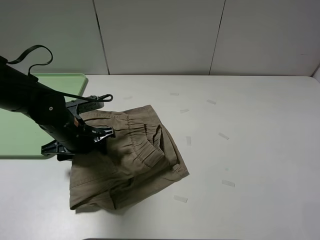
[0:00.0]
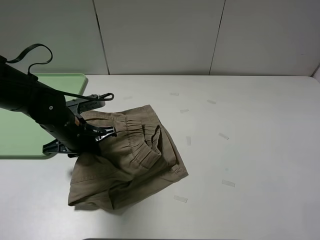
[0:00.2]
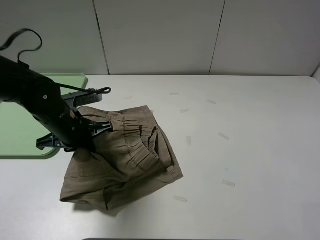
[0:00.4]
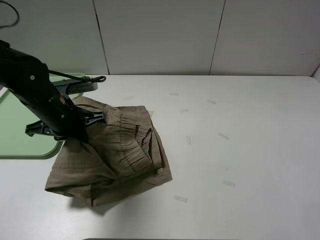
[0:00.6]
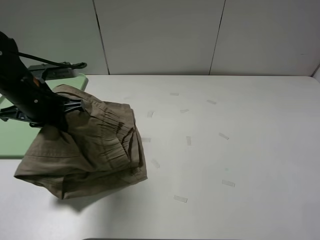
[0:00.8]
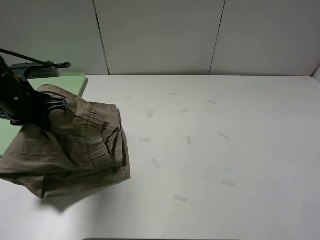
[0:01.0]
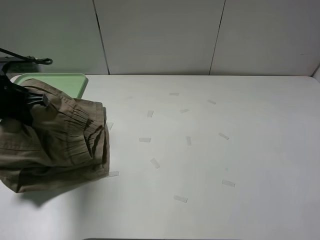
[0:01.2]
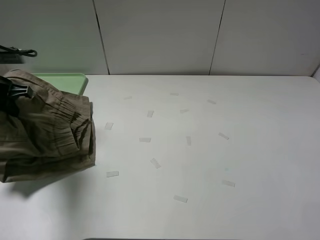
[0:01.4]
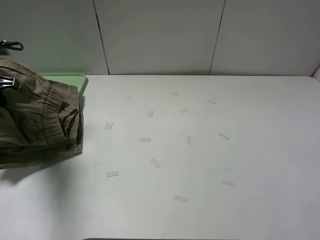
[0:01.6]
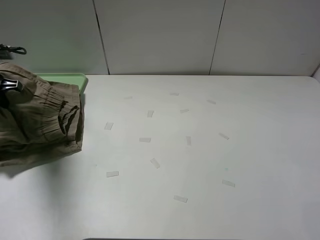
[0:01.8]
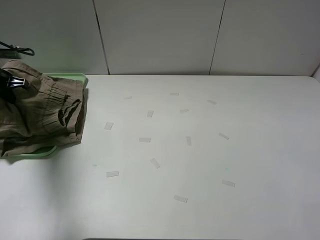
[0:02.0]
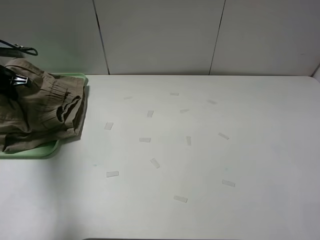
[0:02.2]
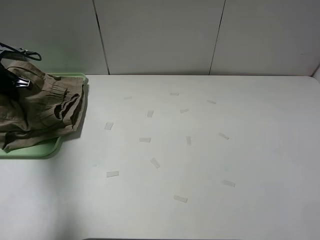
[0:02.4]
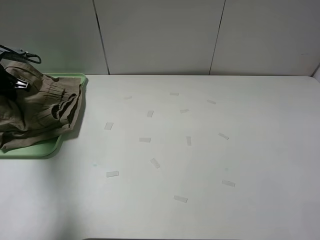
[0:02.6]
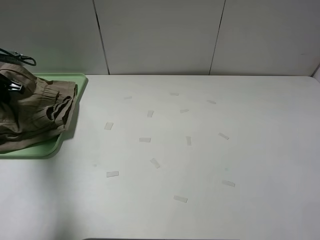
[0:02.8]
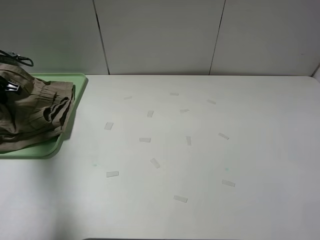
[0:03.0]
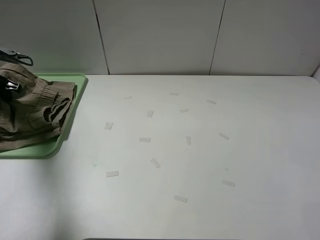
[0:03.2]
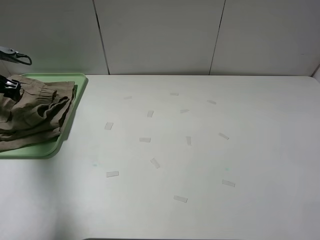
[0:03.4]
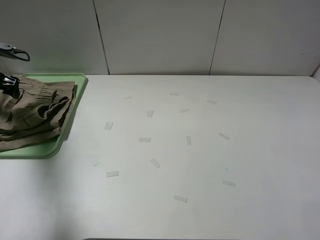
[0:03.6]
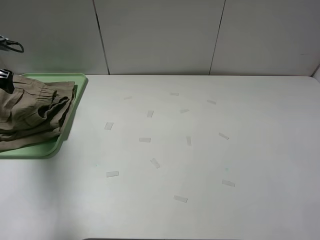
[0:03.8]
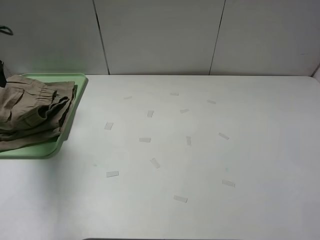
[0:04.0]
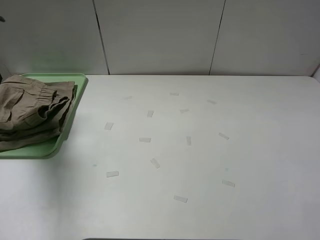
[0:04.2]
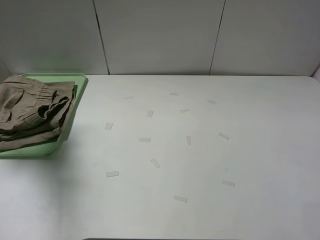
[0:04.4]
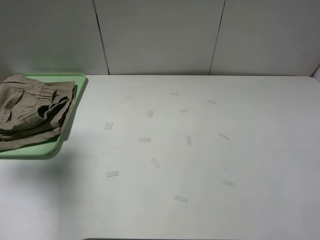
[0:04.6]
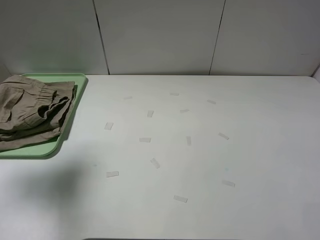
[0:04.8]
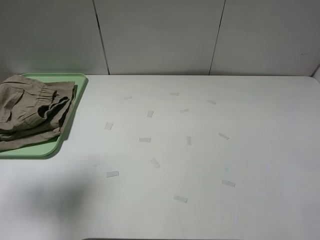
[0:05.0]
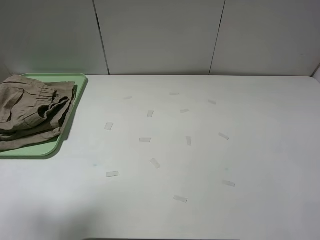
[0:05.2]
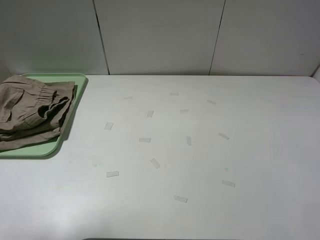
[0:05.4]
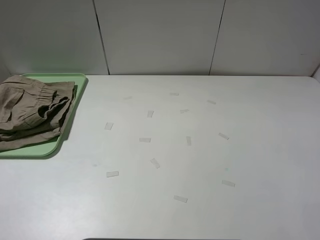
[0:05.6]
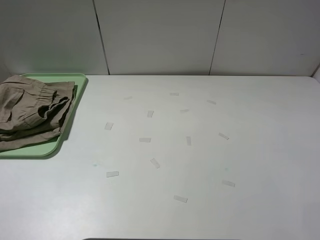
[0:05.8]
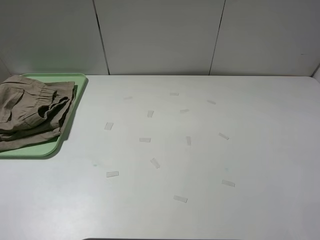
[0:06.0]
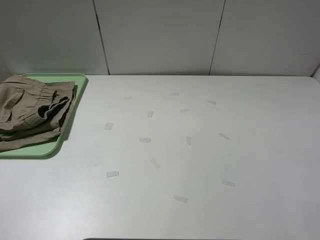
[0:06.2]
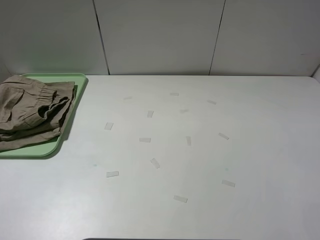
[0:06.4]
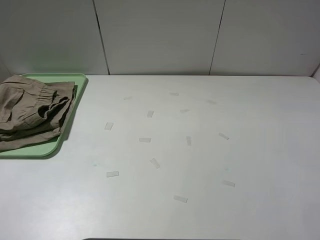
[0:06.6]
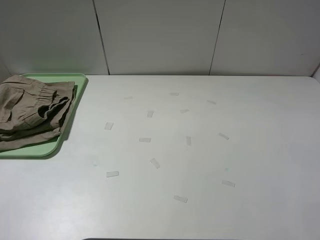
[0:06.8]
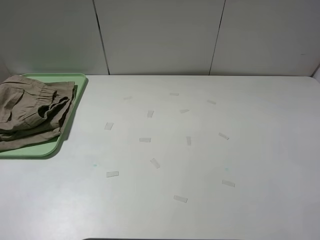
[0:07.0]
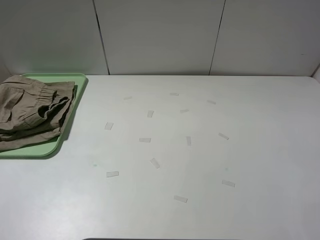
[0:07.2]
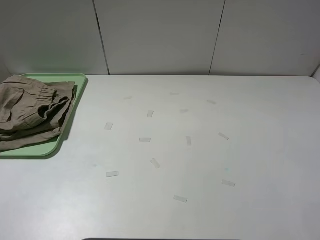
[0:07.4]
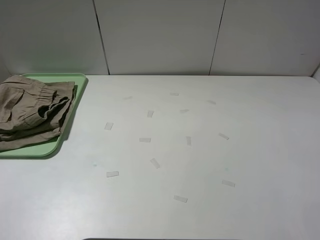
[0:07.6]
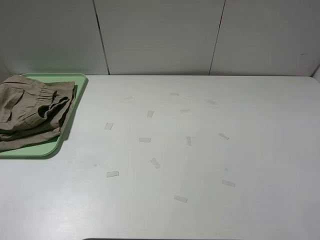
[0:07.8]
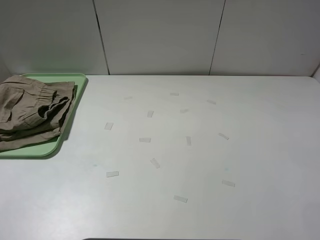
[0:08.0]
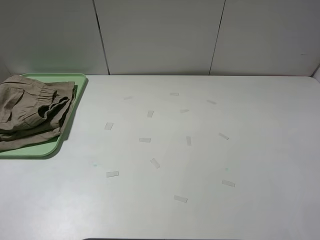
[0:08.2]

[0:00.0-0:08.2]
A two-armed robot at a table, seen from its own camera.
Task of the whole recording: fold the khaki jeans in half with two grippers, then fold them in half again, and use the left claw to place the folded fold khaki jeans on the tray.
Step, 0:00.4 to 0:03.4: Place the folded khaki trousers on the green tray with the left gripper.
0:00.0 to 0:01.6: The left gripper moves to the left and upward, about 25 cm, and closes its fingers.
0:01.6 to 0:03.2: The left gripper travels forward and to the left by roughly 10 cm, and opens its fingers.
0:03.2 to 0:05.0: The left gripper moves upward and backward, some 30 cm.
0:05.0 to 0:06.6: The left gripper shifts roughly 25 cm backward and downward.
0:06.6 to 0:08.2: Neither gripper changes place.
